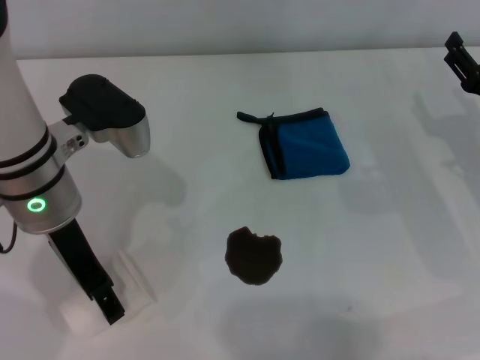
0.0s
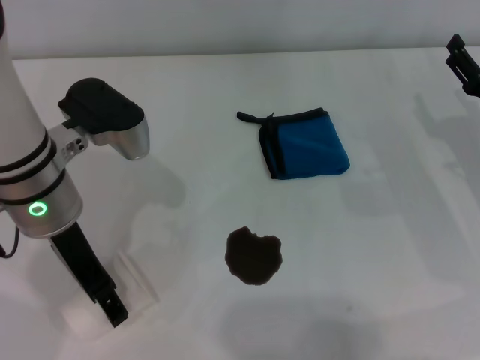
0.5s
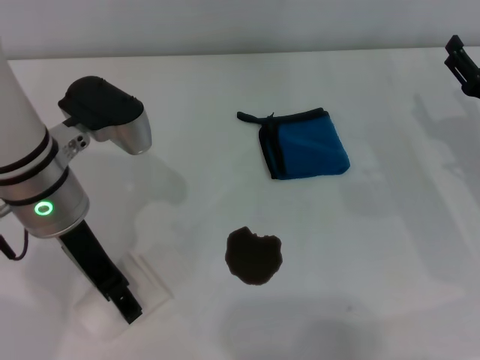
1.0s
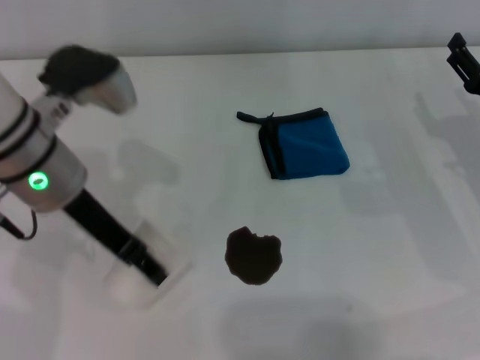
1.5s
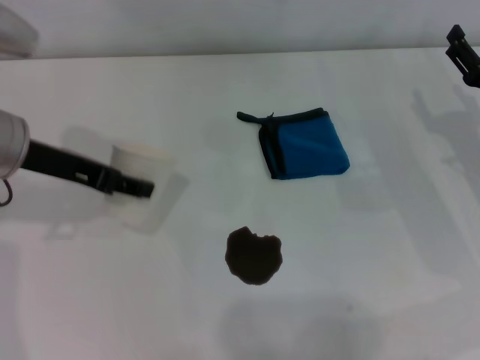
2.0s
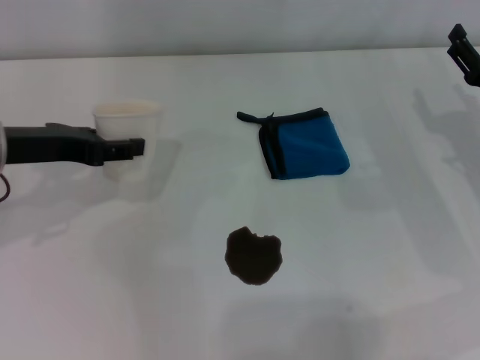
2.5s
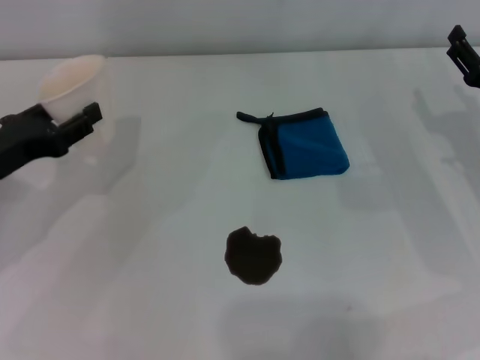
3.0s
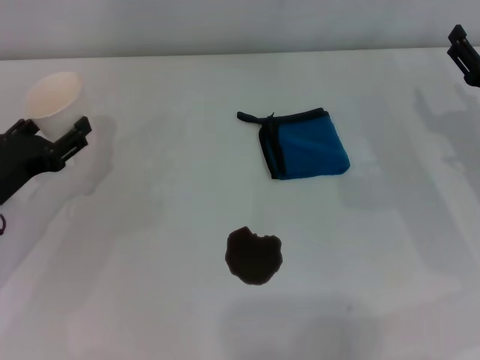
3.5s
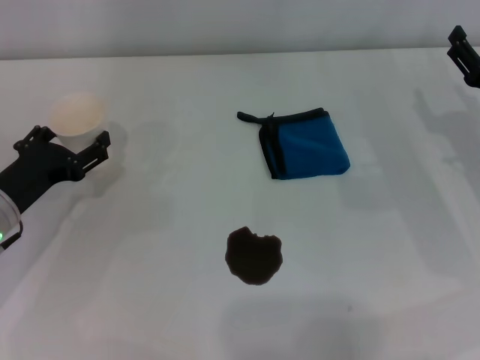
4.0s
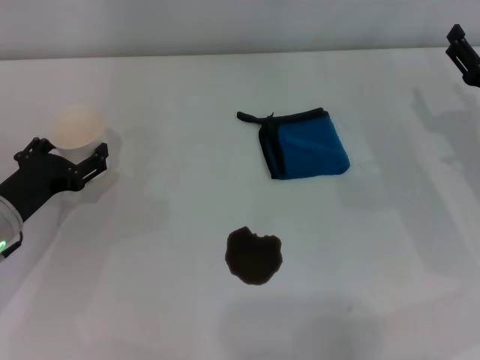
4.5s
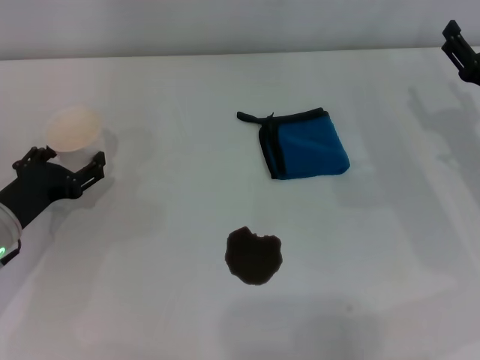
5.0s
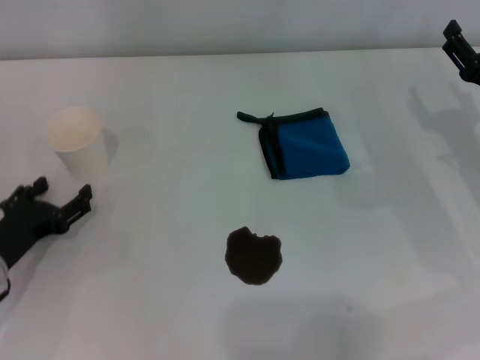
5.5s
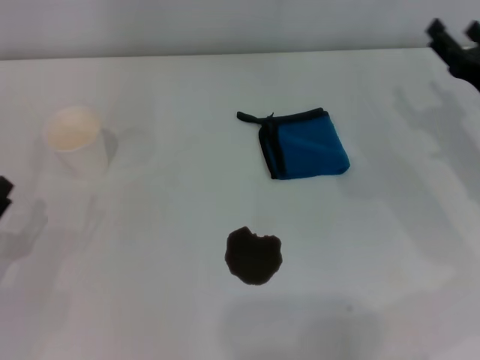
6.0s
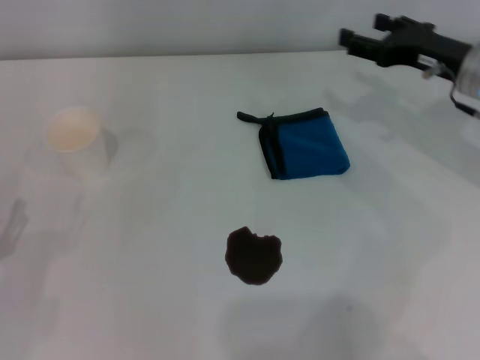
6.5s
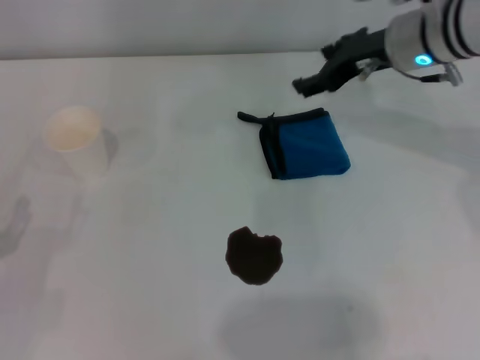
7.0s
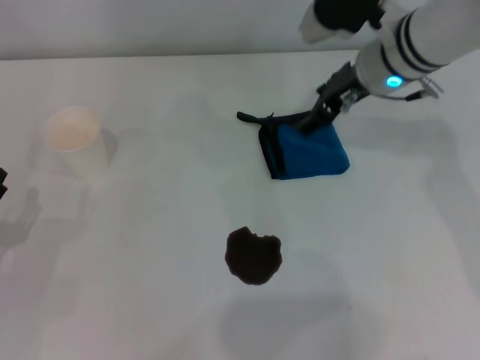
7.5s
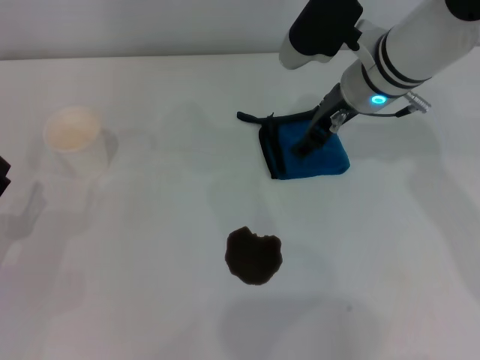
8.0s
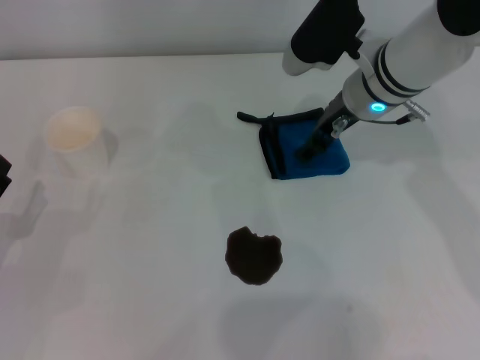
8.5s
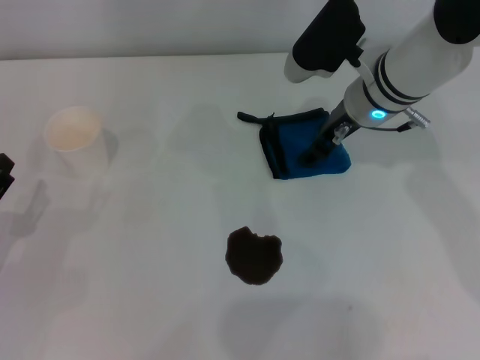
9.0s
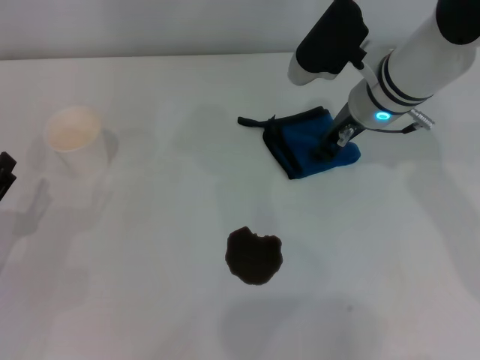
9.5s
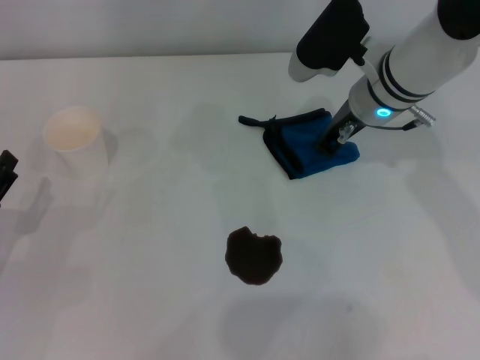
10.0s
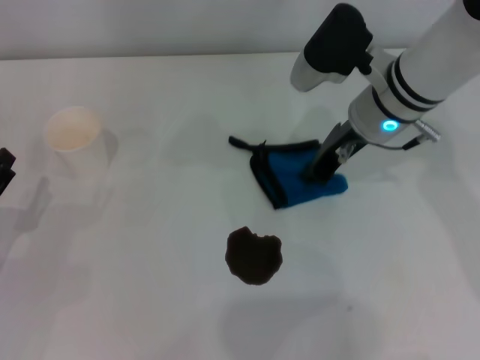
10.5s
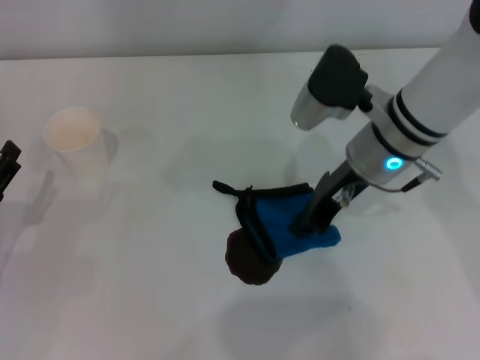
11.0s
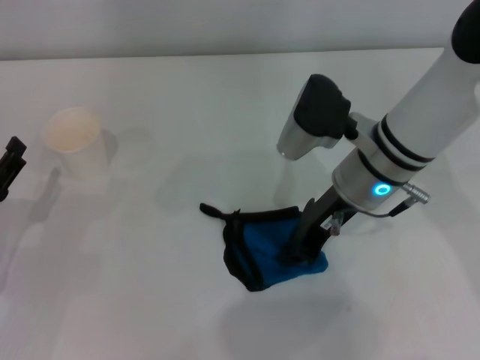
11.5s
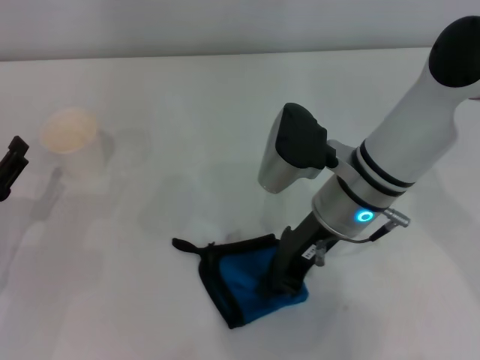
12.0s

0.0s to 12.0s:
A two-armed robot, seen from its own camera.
Step, 1.5s to 4.5s: Stand the paper cup upright with the left gripper.
Step, 5.0s to 10.0s: Grasp the rag with the right gripper.
0.0s to 2.0s: The left gripper moves to the left, roughly 5 cm, and closes.
2.0s to 4.0s: The left gripper heads downward, covering about 15 cm, and opens its fingers.
4.0s to 6.0s: The left gripper goes about 10 cm backward and to the left.
6.0s to 8.0s: The right gripper goes about 20 cm to the left, forward and upward.
8.0s to 10.0s: The right gripper closes up.
10.0s to 12.0s: The right gripper heads backward, covering about 10 cm.

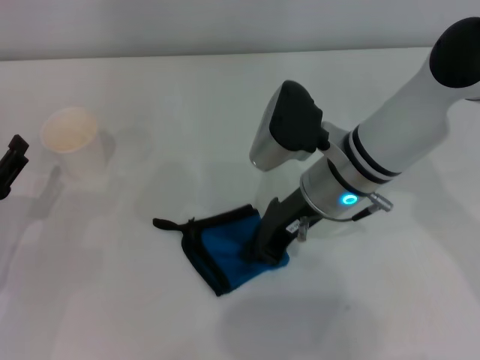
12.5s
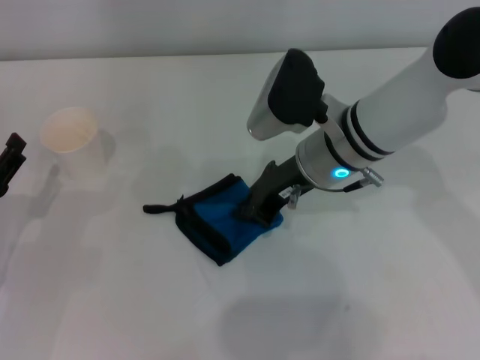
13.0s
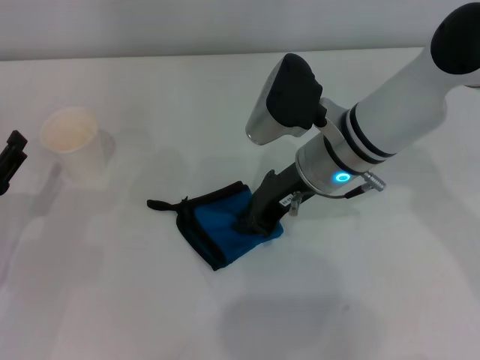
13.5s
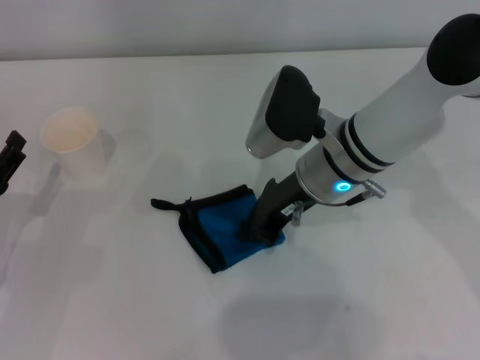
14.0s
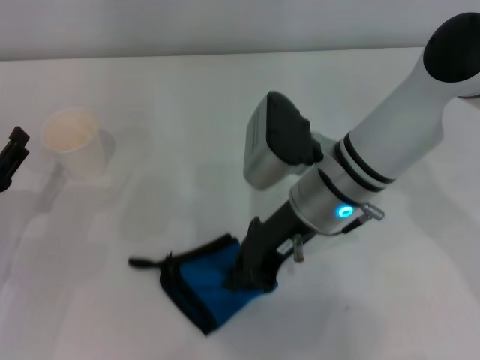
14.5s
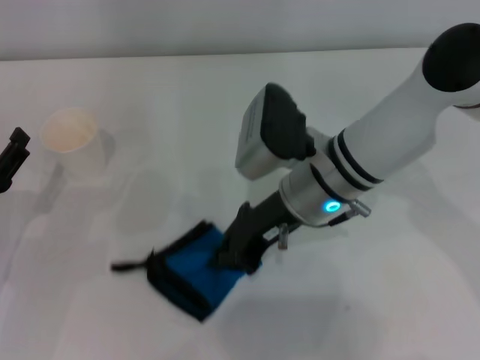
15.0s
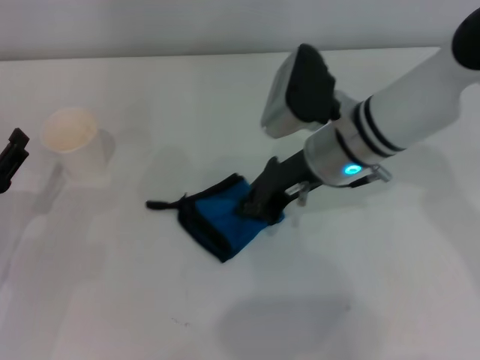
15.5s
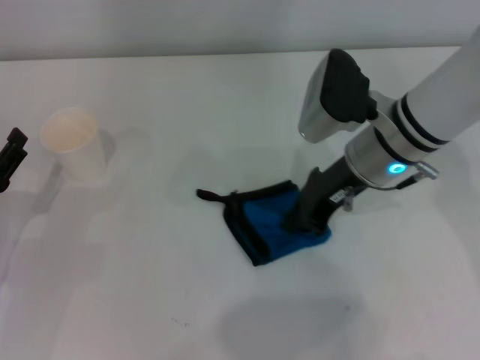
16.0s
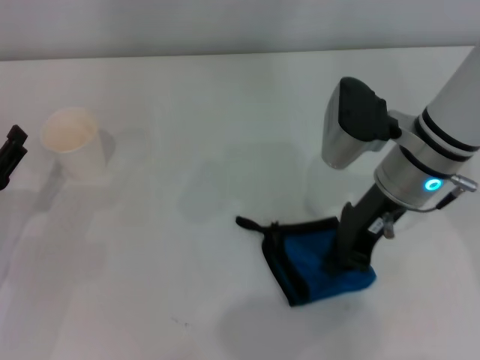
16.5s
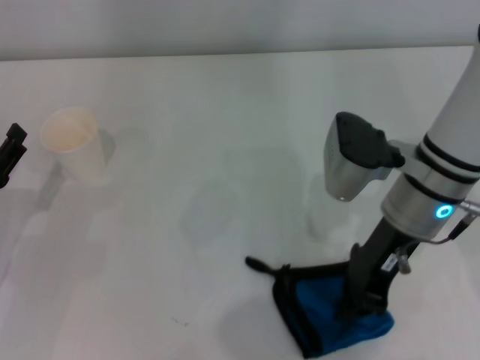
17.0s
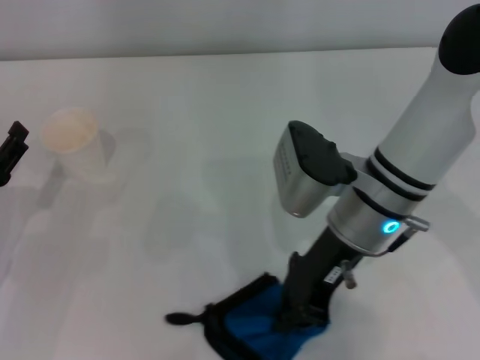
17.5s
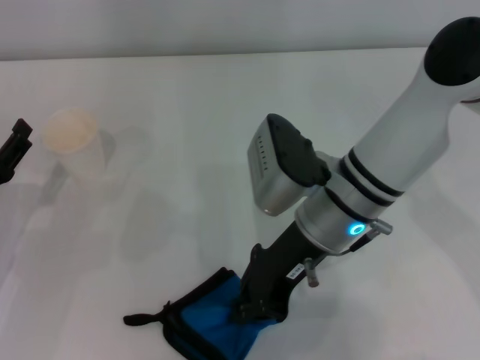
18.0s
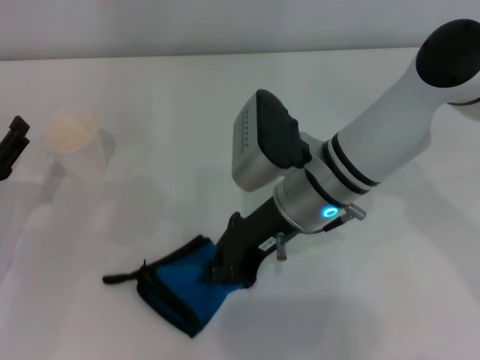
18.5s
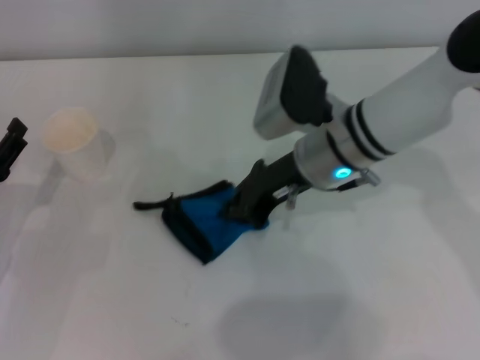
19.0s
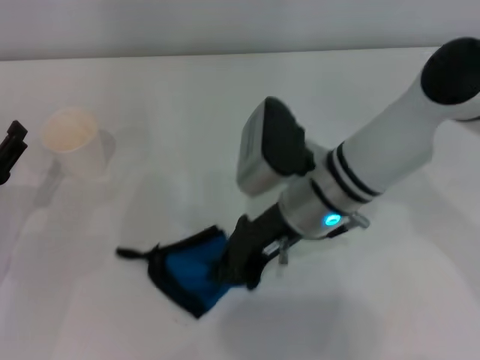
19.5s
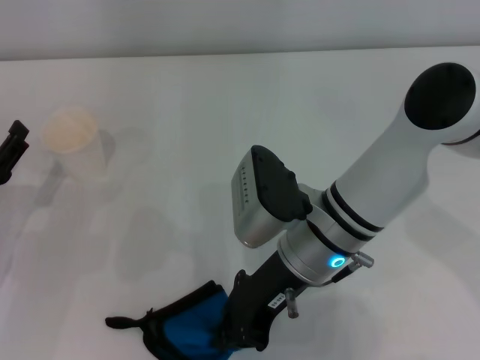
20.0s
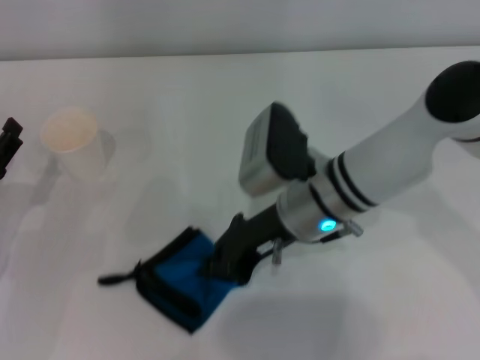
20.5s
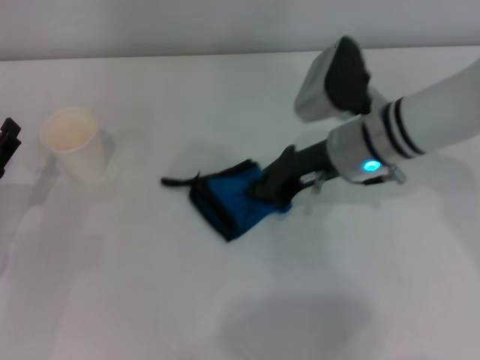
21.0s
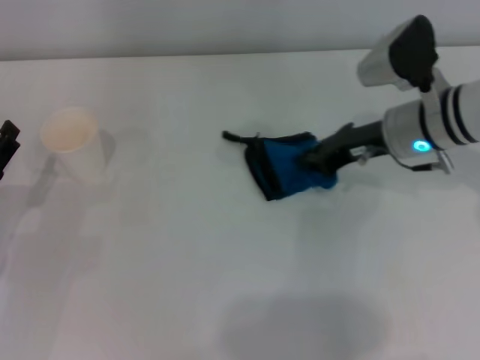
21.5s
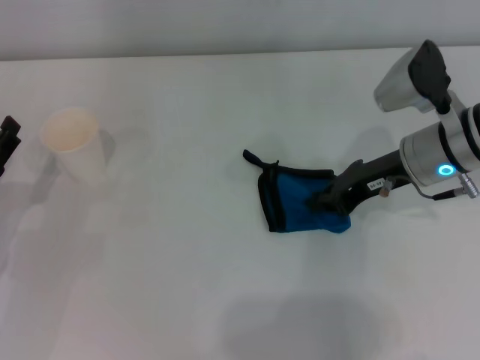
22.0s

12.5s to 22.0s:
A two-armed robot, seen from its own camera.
Step, 12.5s to 21.0s: Wipe the stains off the table with the right gripper.
12.5s to 14.5s: There are only small adjustments of the grippers.
14.5s to 16.5s: The right gripper goes about 10 cm to the right.
16.5s to 18.0s: The right gripper travels to the left by some 10 cm.
20.0s to 22.0s: The right gripper goes about 15 cm to the right and forward.

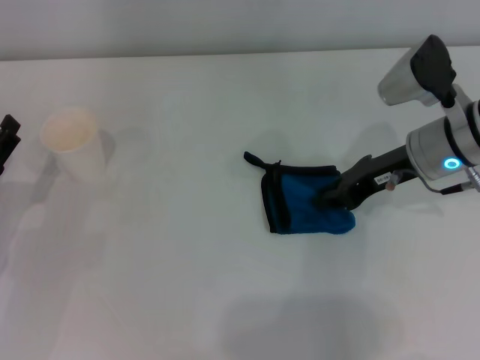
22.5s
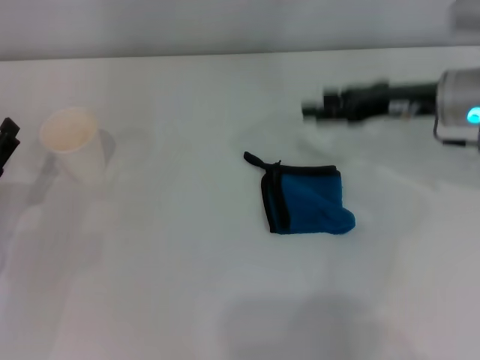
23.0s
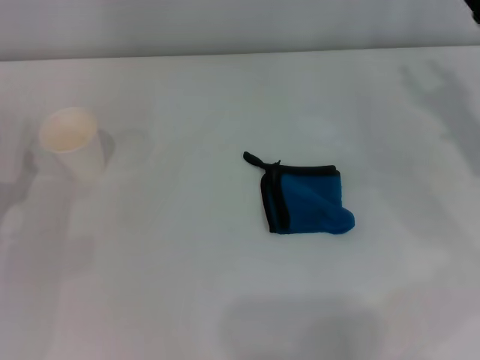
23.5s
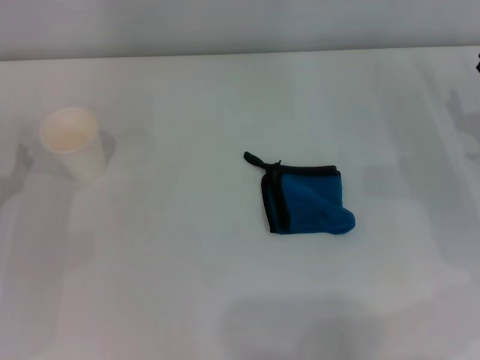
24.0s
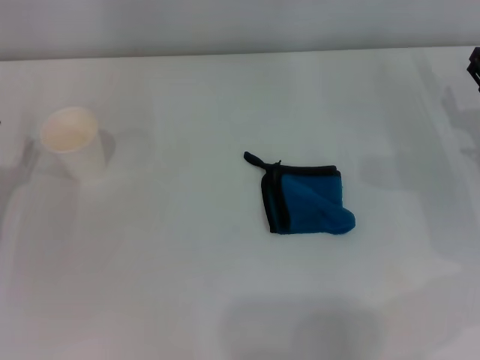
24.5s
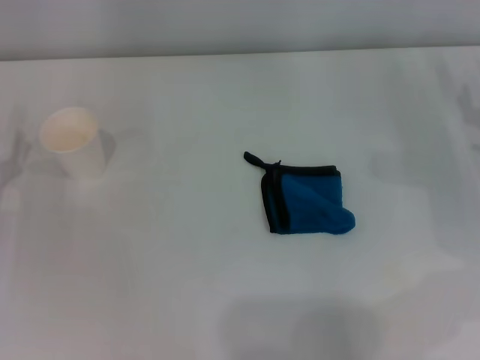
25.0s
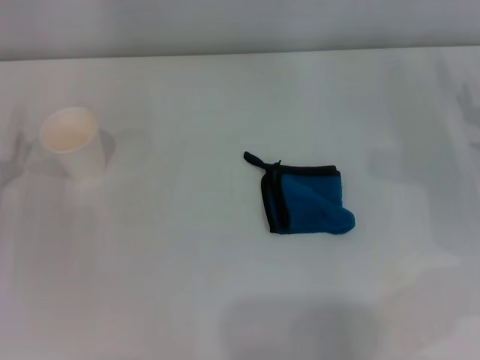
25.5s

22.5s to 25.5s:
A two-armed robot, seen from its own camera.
22.5s to 24.0s: The right gripper shifts approximately 10 cm to the right, and opens up.

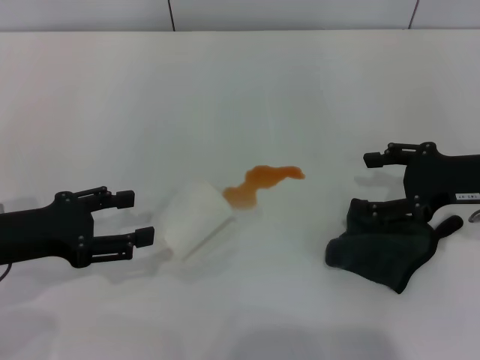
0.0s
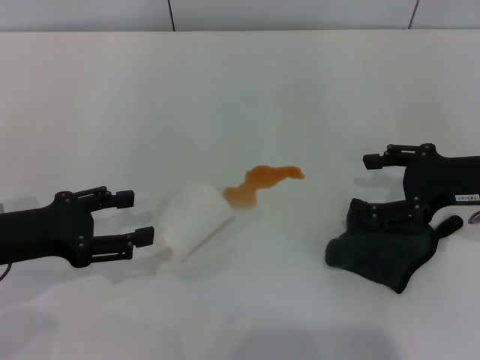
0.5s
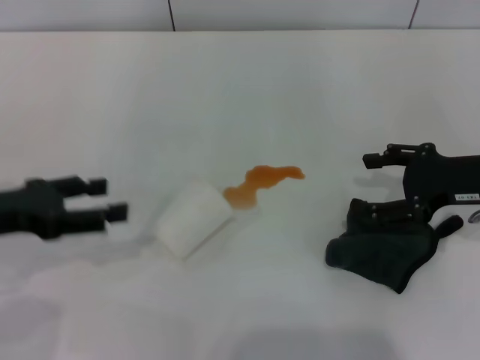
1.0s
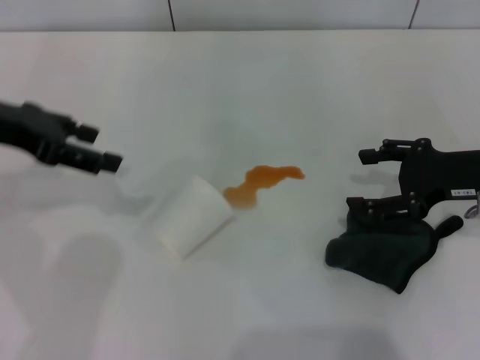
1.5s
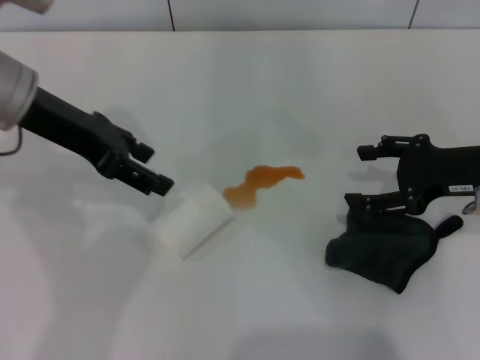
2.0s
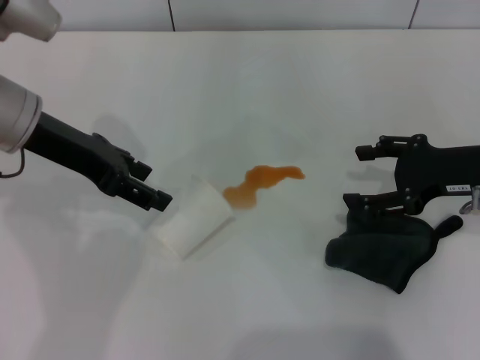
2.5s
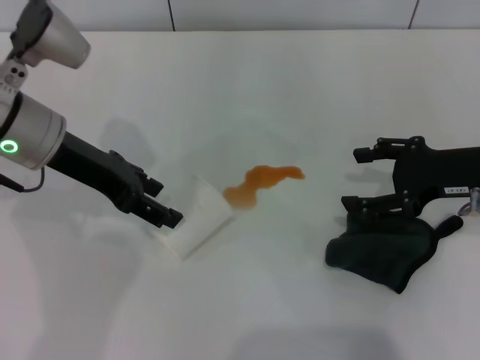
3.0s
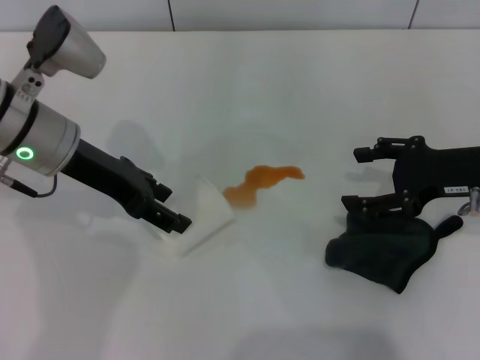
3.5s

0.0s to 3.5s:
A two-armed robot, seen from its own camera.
0.0s to 2.0s: The left gripper moves upward, forward and to the right, about 15 cm.
2.0s to 3.5s: The left gripper moves downward, approximately 5 cm.
